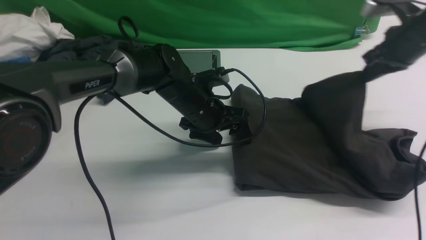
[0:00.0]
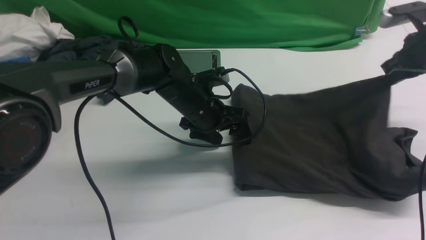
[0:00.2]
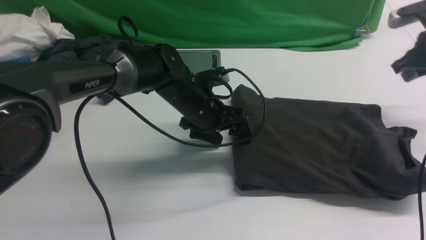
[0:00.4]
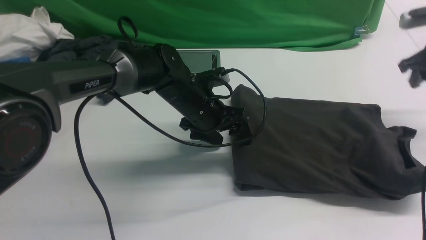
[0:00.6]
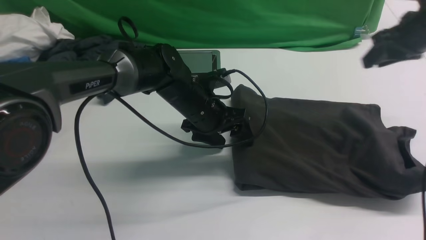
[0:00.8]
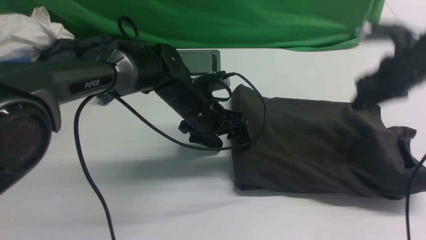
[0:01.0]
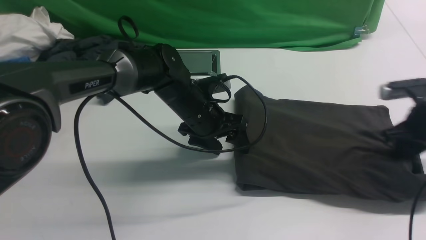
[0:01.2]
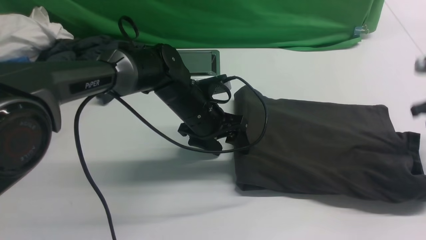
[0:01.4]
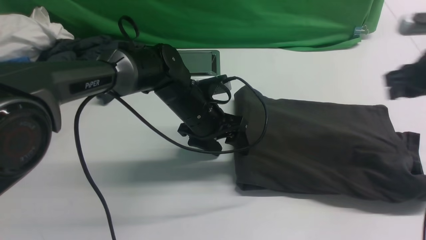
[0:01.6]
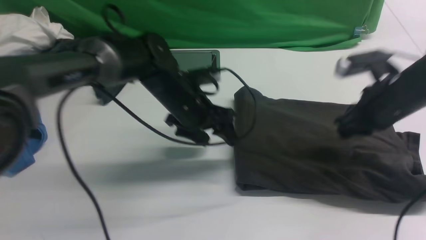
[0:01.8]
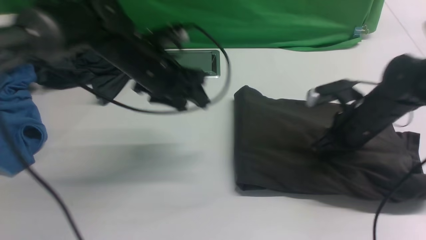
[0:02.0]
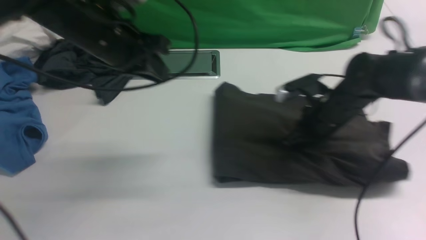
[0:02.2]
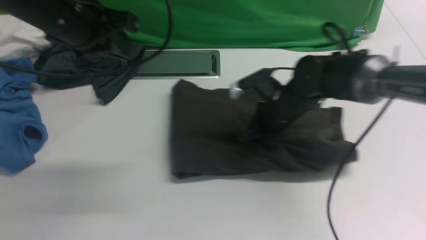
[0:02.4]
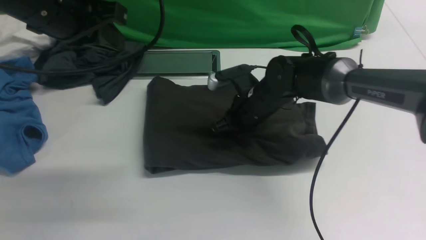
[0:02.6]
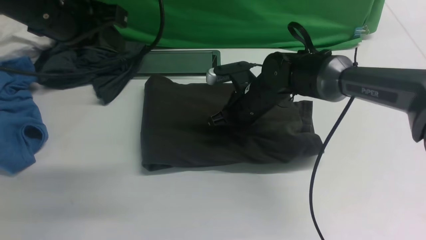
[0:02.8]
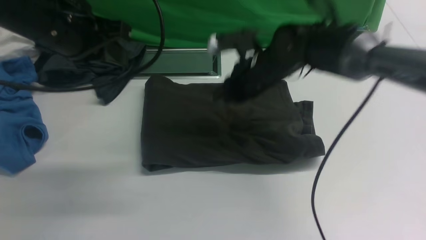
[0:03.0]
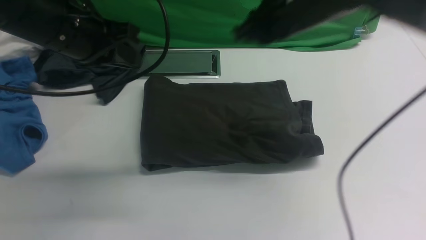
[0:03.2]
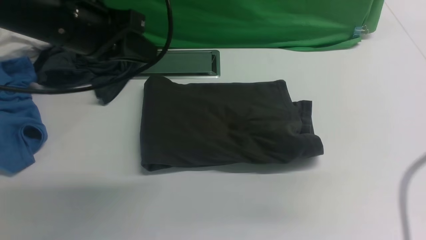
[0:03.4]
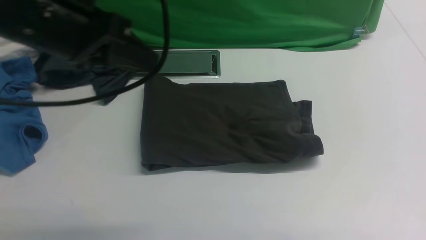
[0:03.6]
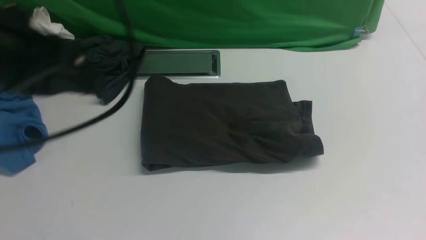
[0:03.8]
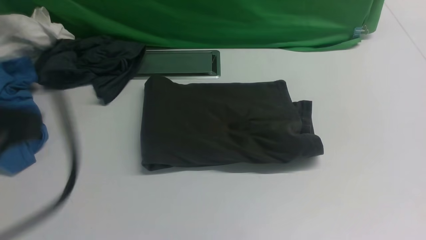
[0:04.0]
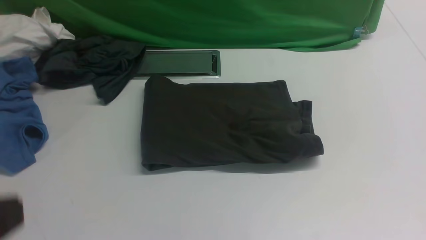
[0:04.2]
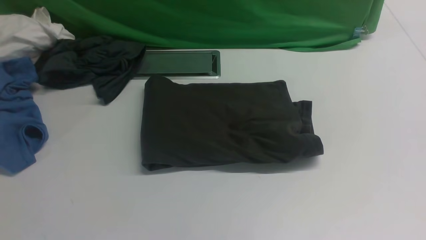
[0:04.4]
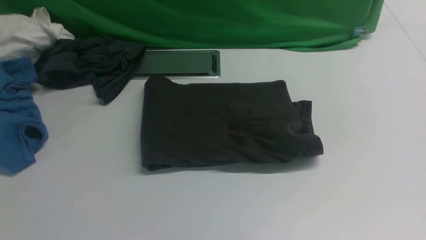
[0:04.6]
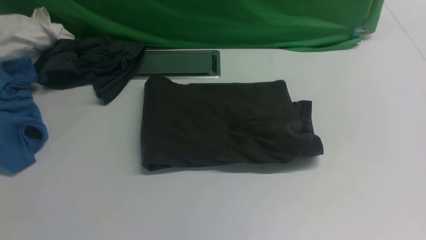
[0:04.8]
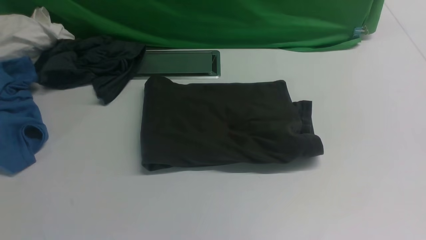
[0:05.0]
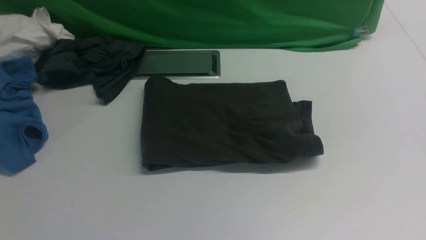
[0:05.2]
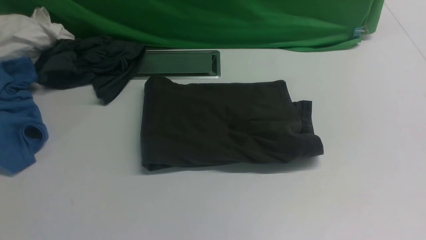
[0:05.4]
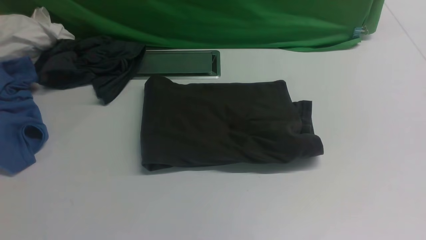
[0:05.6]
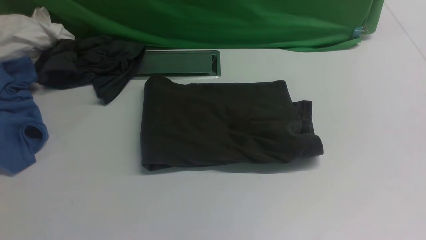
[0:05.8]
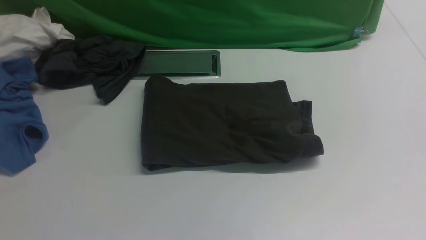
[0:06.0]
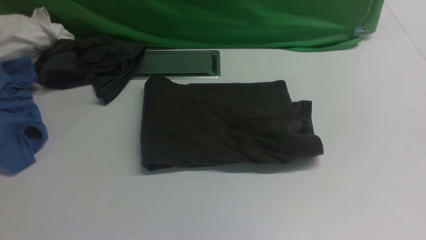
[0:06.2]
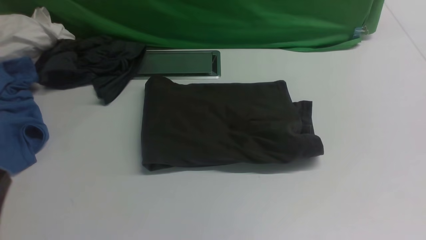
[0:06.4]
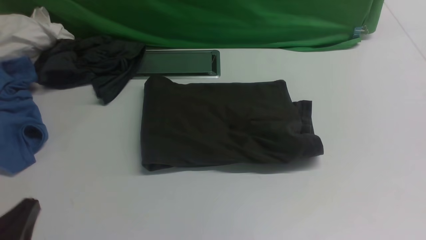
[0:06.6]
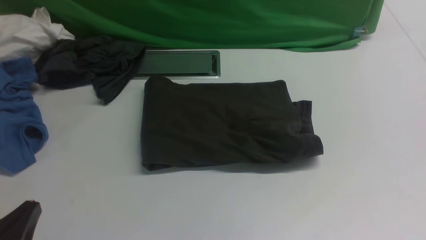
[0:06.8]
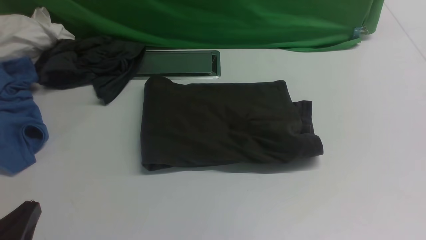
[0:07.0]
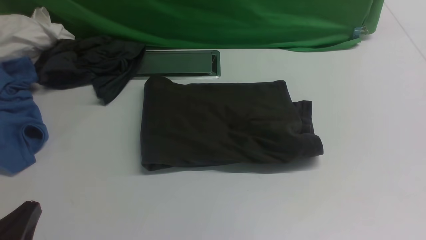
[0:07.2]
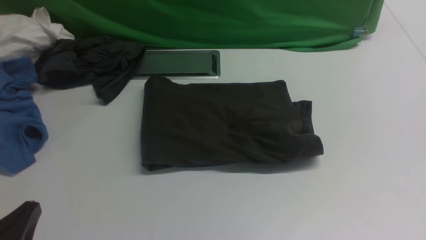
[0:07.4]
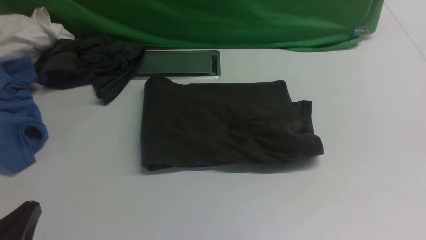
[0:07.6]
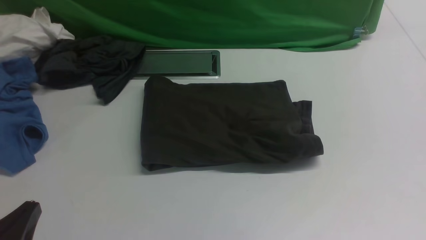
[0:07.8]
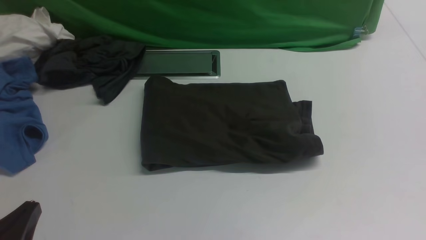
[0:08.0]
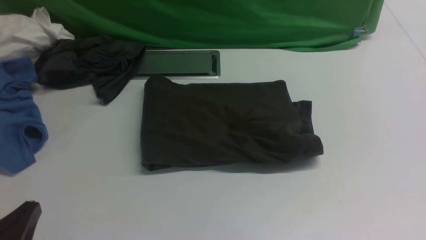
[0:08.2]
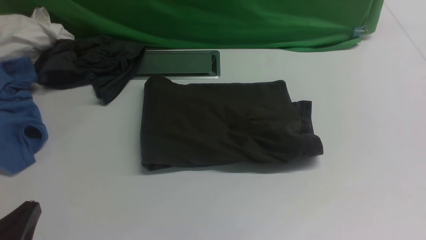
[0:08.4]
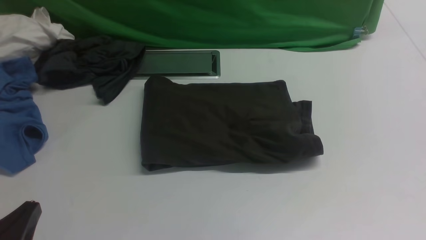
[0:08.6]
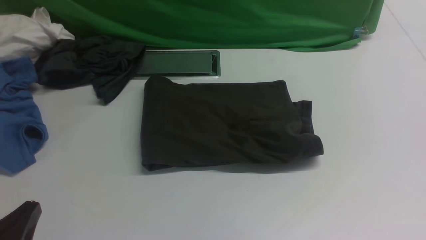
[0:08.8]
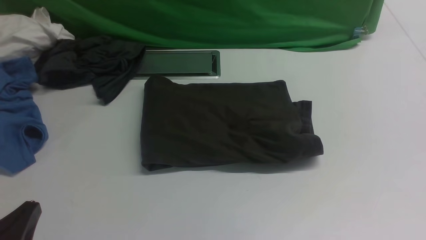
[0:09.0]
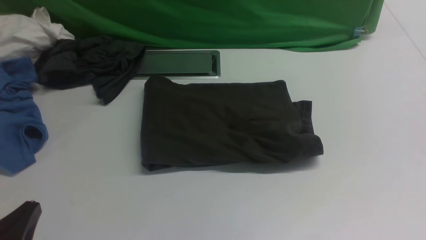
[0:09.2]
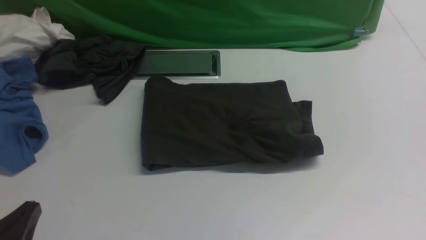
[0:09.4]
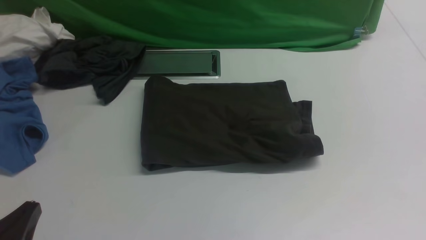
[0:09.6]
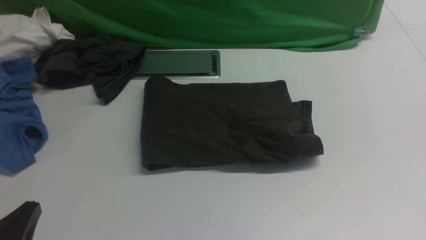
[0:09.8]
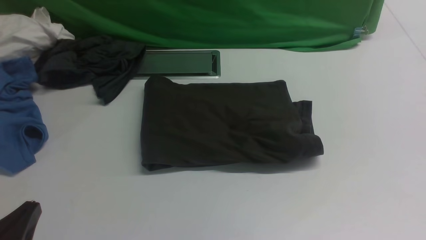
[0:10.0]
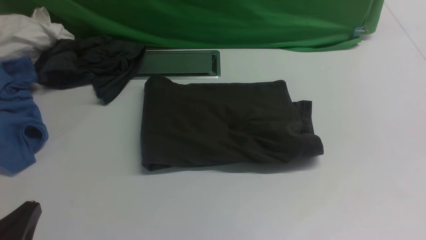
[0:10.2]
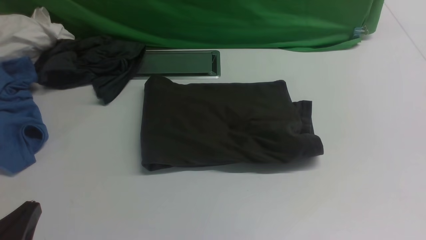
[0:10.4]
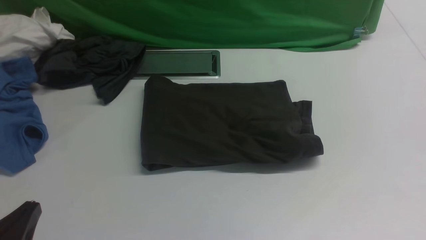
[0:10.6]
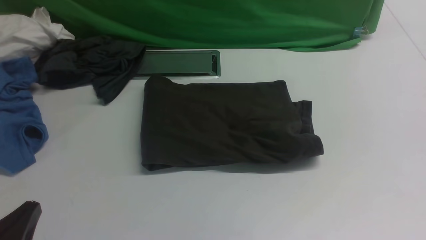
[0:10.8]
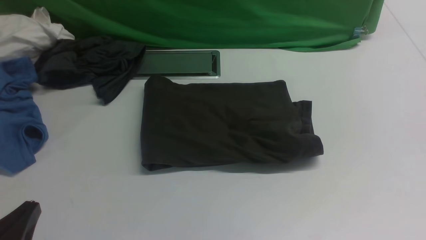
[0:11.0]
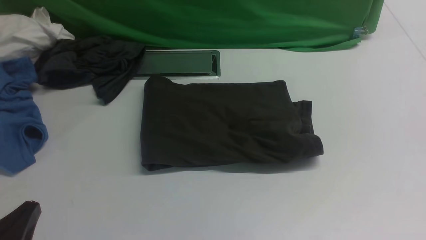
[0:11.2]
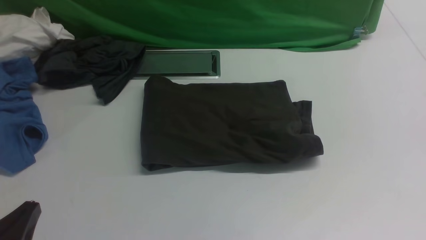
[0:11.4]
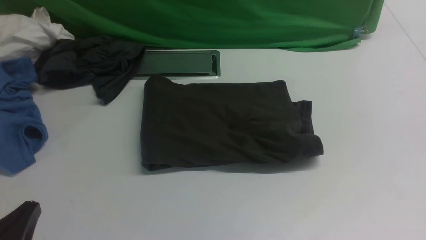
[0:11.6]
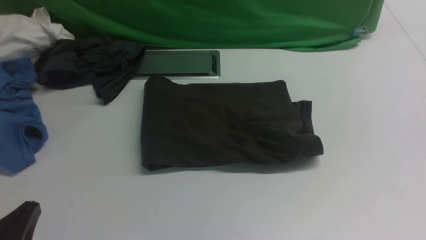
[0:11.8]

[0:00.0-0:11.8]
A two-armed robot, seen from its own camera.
0:00.0 to 0:01.4: The right gripper moves backward, some 10 cm, and opens.
0:01.4 to 0:03.0: The left gripper goes some 25 cm upward and to the left, and closes its fingers, while the right gripper heads to the left, covering roughly 25 cm, and closes its fingers.
0:03.0 to 0:04.4: The right gripper heads backward and to the right, covering some 40 cm. The left gripper shifts roughly 35 cm backward.
0:06.0 to 0:07.4: The left gripper is displaced downward and forward by about 15 cm.
0:10.4 to 0:11.8: Both grippers stay about where they are.
